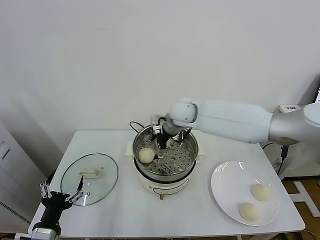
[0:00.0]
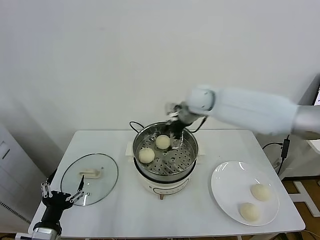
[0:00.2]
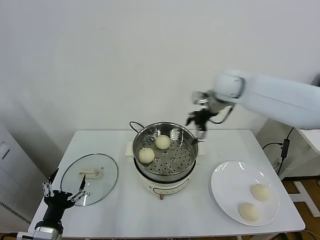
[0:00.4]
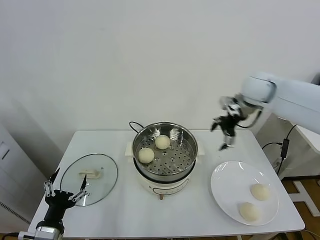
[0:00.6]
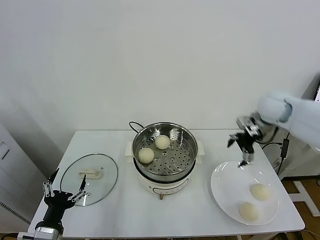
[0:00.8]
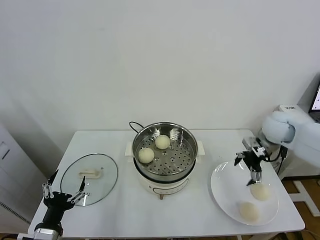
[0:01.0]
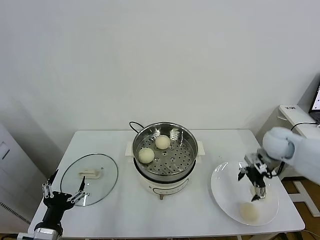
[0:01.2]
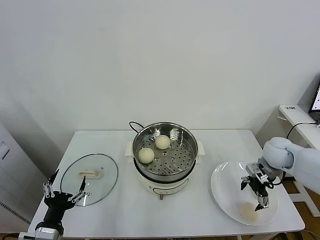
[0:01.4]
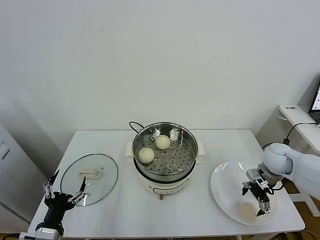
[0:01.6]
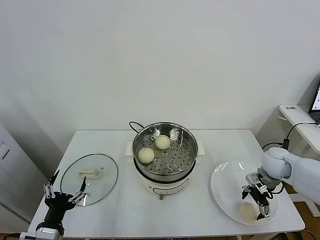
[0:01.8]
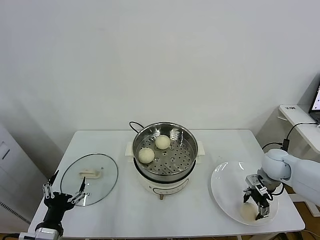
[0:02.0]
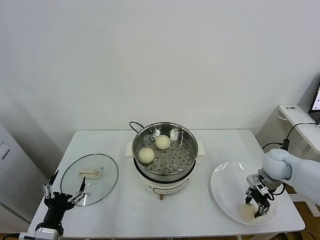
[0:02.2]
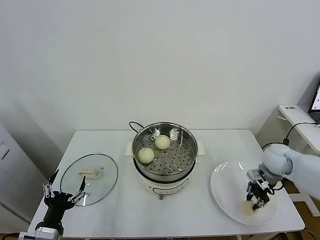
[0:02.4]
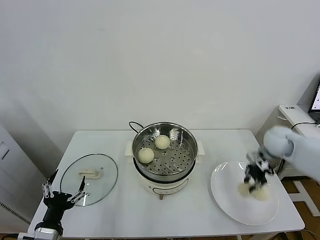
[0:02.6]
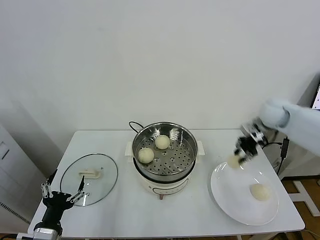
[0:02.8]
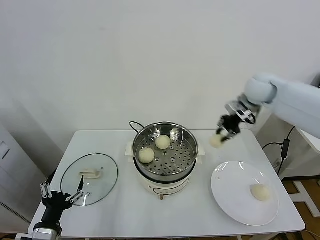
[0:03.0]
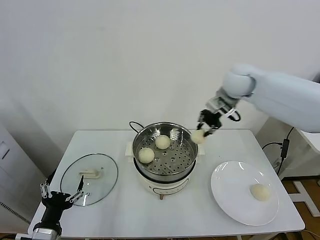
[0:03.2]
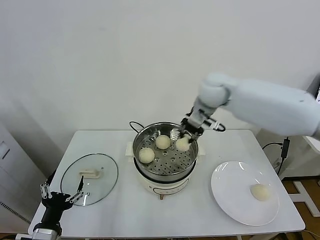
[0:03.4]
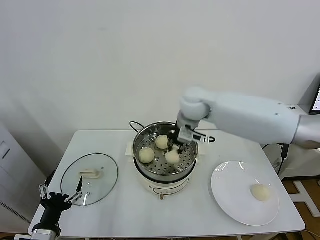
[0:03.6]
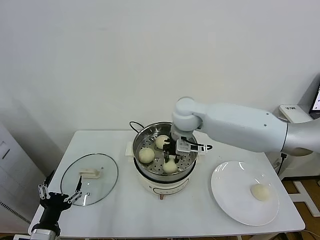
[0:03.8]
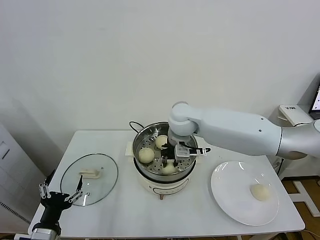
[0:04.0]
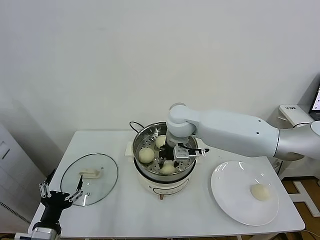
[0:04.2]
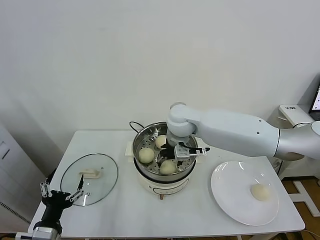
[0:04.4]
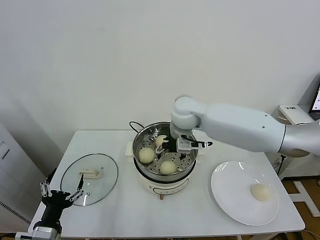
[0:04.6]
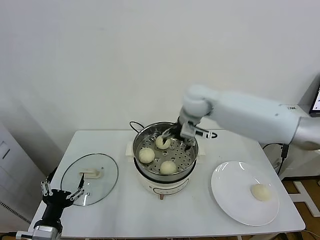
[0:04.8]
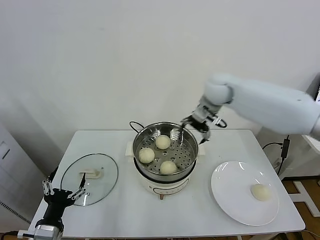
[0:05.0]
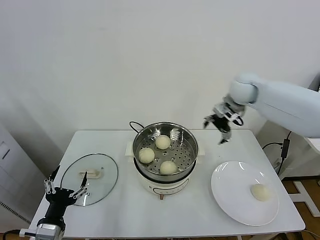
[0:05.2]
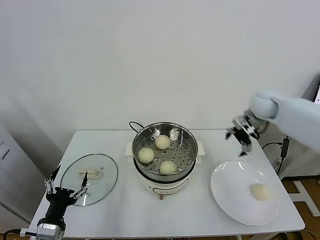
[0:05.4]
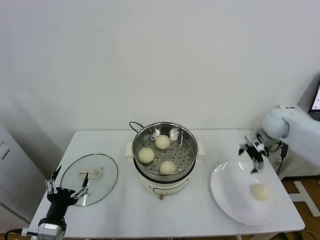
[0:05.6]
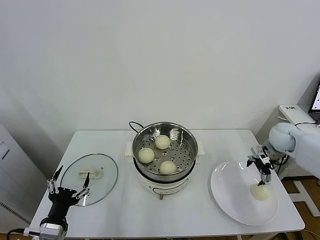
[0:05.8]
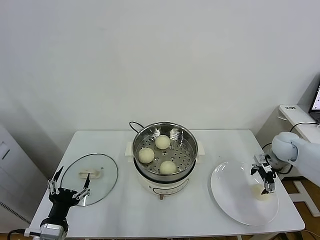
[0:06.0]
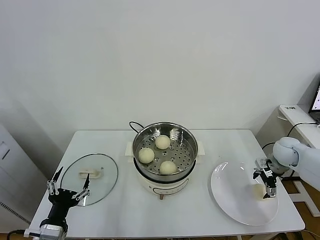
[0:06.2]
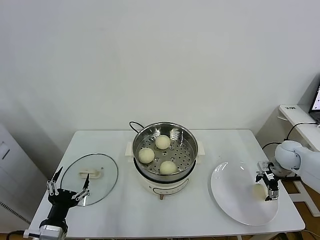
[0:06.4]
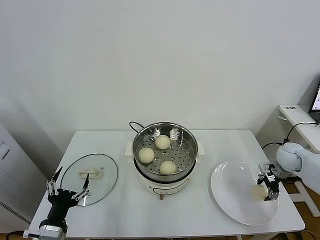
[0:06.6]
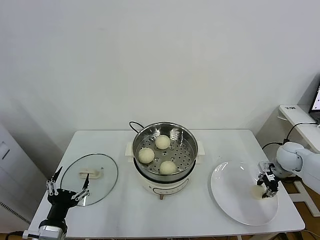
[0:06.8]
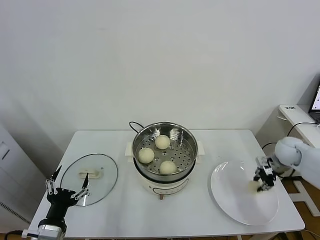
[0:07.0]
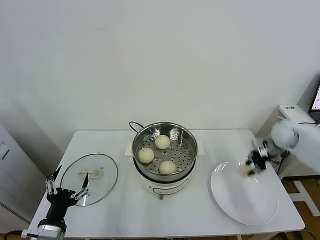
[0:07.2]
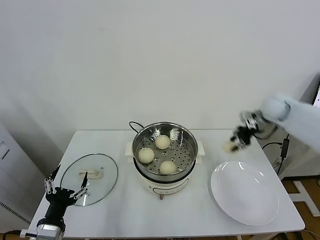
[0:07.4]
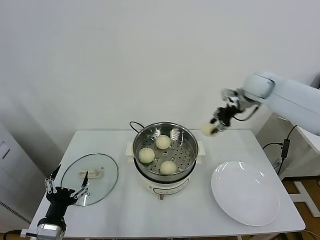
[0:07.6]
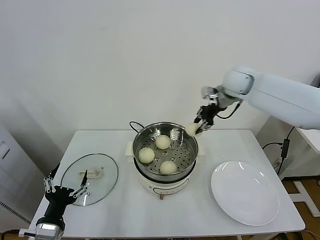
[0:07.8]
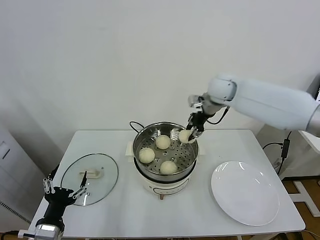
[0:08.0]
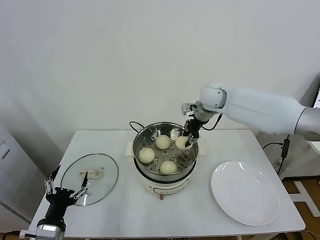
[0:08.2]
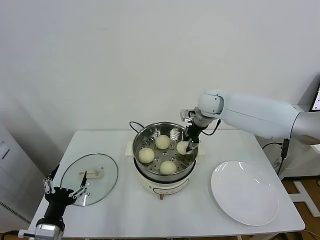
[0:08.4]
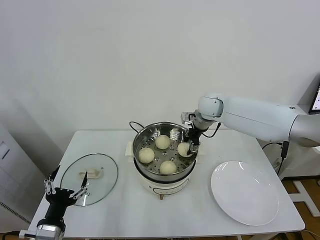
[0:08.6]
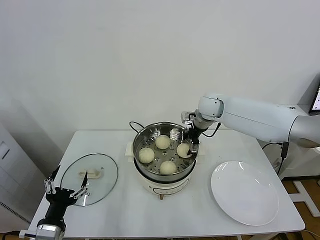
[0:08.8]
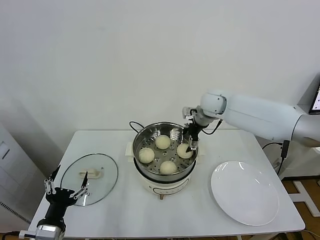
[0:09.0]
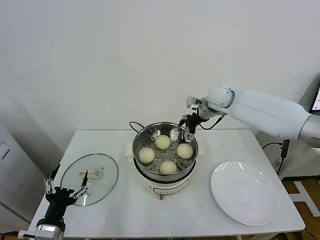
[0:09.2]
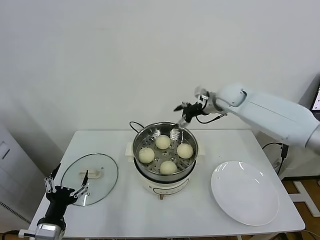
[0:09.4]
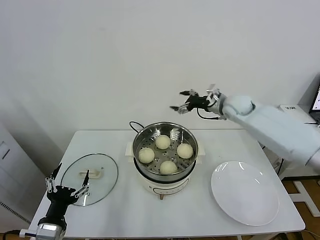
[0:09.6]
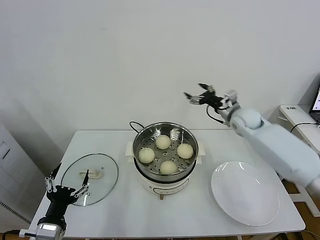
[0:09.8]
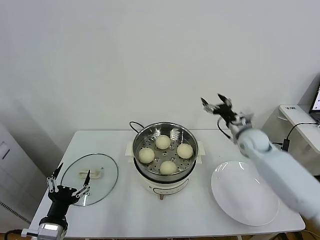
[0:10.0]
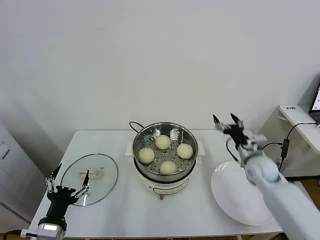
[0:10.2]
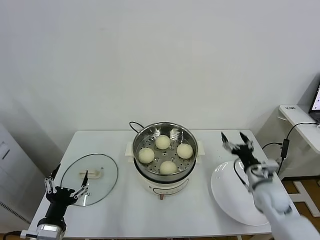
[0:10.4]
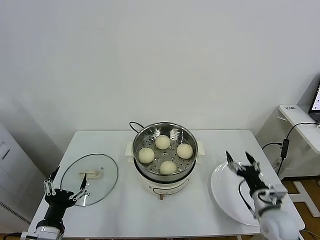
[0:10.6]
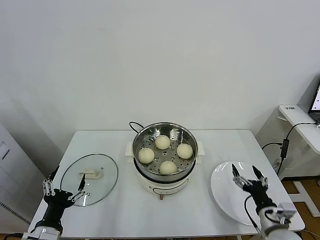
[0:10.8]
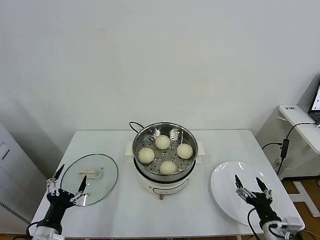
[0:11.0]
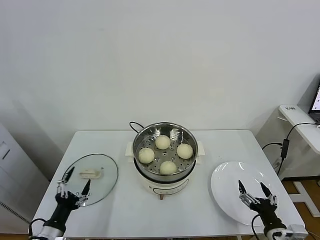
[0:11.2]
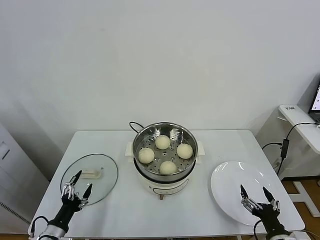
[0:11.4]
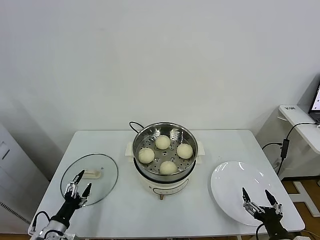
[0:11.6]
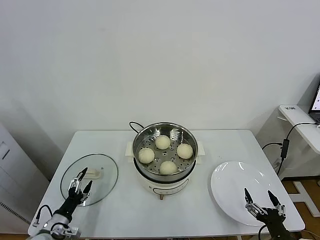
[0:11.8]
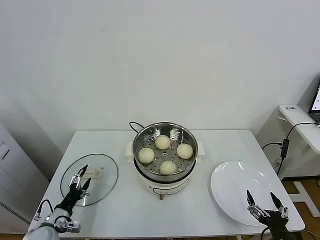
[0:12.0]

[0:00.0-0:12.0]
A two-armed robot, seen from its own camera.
Task of the whole recording: take steamed baozi put them in steamer.
Step, 0:00.0 to 0:02.0: Grasp the baozi in the plate with right gripper.
Step, 0:02.2 to 0:04.4: Place the baozi on the steamer with right gripper.
Step, 0:04.8 to 0:06.6: Grasp the baozi in the plate with right gripper.
Step, 0:06.8 to 0:08.8: Place the baozi on the steamer with right gripper.
0:00.0 to 0:01.6: The right gripper shifts roughly 30 cm to the right.
0:01.6 to 0:03.0: The right gripper heads upward, forward and to the left, covering roughly 25 cm, and closes.
0:03.0 to 0:04.4: The right gripper moves to the left, about 25 cm, and opens.
0:04.4 to 0:06.0: The right gripper is displaced to the right by approximately 40 cm.
0:06.0 to 0:07.6: The right gripper travels upward, to the left and forward by about 25 cm, and closes its fingers.
0:07.6 to 0:09.0: The right gripper is displaced to the left and downward by approximately 15 cm, and opens its fingers.
0:09.0 to 0:10.4: The right gripper travels backward, downward and to the right by roughly 35 cm.
0:10.4 to 0:12.0: The left gripper travels downward, forward and to the left by about 20 cm, while the right gripper moves backward, roughly 25 cm.

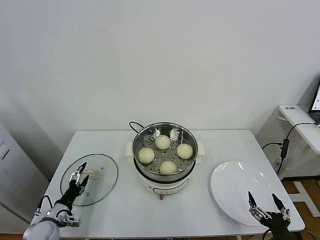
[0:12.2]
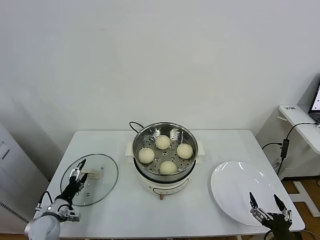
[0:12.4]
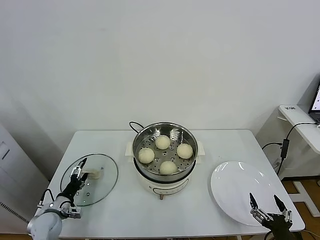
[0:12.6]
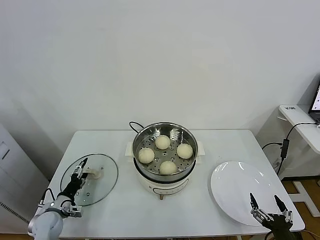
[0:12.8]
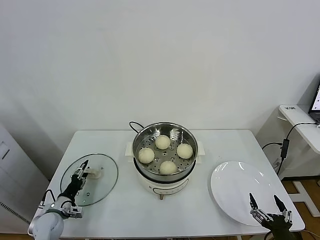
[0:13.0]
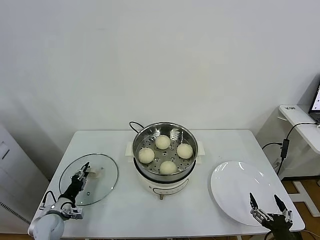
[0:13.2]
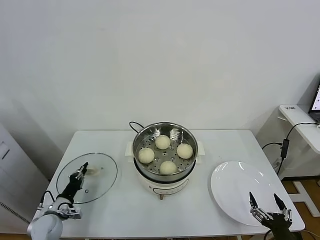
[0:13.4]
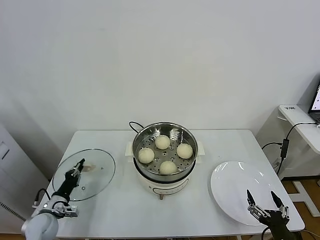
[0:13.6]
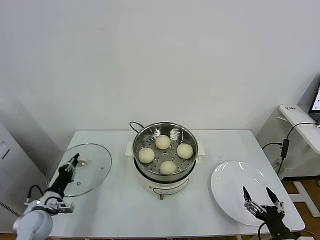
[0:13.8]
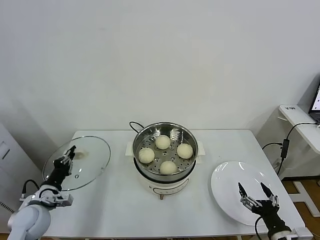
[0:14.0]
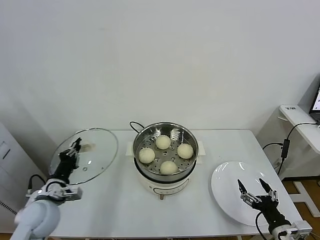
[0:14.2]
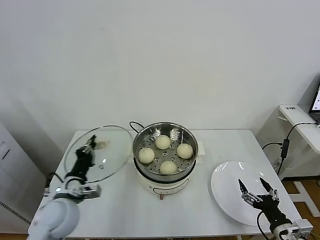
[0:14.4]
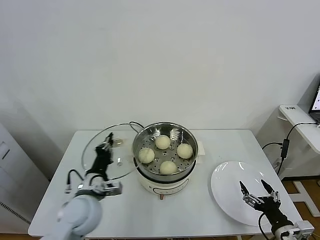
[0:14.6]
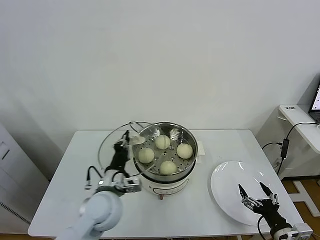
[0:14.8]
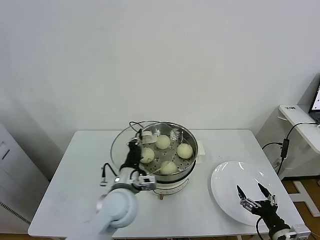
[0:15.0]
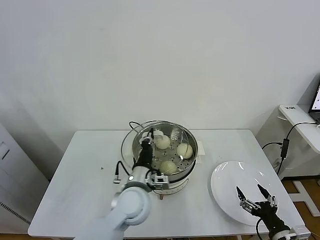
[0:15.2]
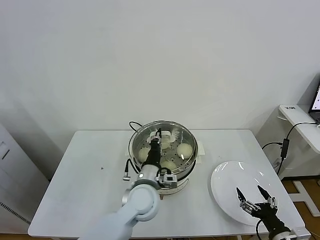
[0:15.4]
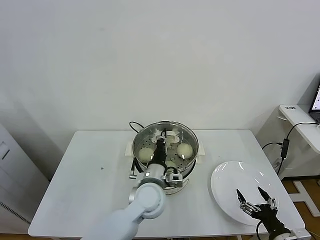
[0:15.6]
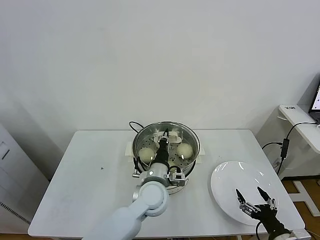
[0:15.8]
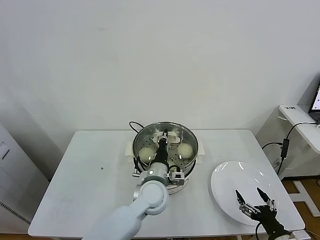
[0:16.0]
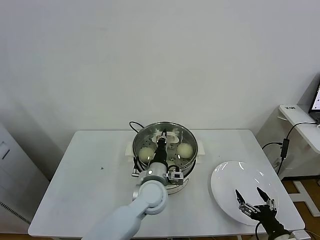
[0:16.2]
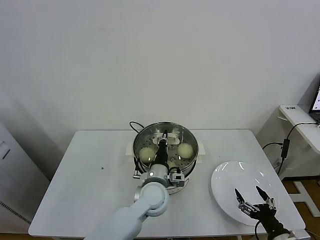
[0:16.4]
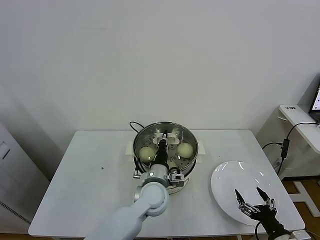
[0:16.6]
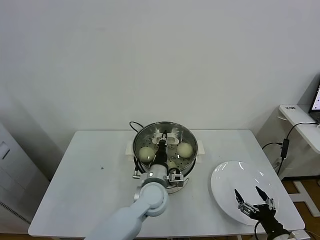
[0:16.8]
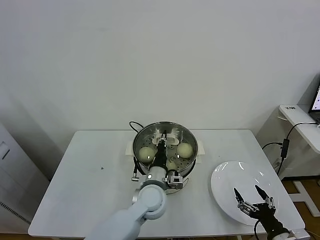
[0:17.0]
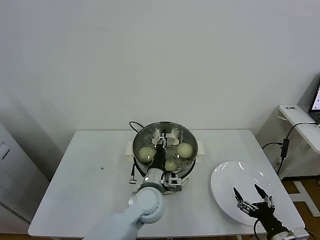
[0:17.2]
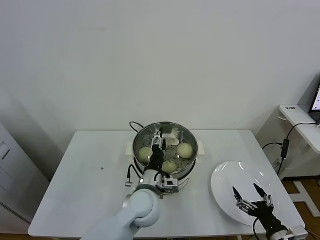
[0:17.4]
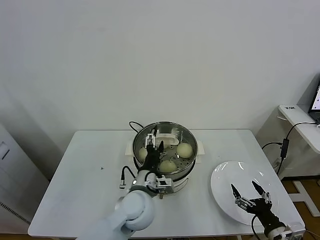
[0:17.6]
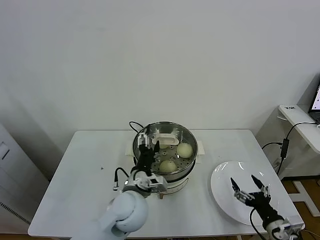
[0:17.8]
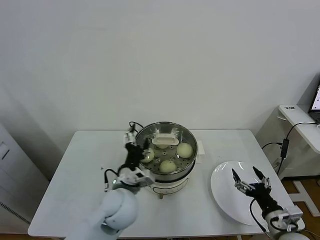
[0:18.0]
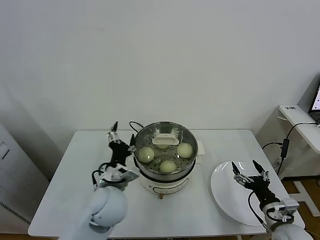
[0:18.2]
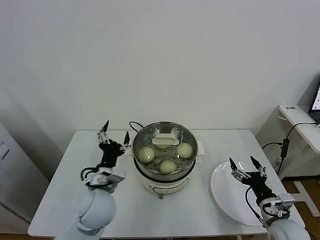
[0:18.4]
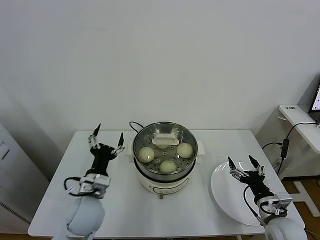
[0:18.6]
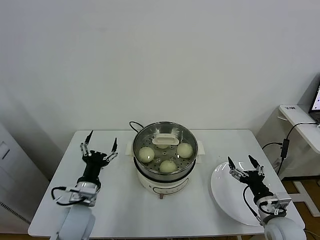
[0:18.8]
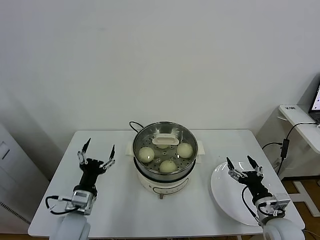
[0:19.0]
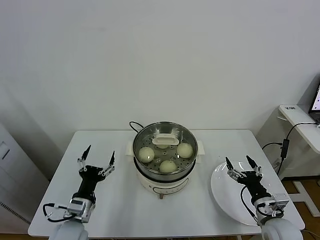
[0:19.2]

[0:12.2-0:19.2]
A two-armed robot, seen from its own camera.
Task of the whole recording: take steamed baozi put them in steamer.
Step, 0:13.6 to 0:17.6: Place the pot lid on the steamer with left gripper.
0:12.2 to 0:13.6: The left gripper closes its fingers.
0:13.6 to 0:15.0: The left gripper travels to the right and upward by about 30 cm; the right gripper changes place by about 5 cm.
0:15.0 to 0:16.4: The left gripper travels to the right by some 10 cm.
0:16.4 to 0:17.8: The left gripper goes some 5 cm to the left and backward, and opens.
0:17.8 to 0:19.2: The left gripper heads to the left, covering roughly 20 cm, while the right gripper travels forward by some 5 cm.

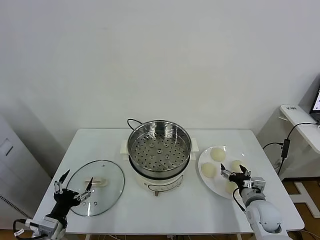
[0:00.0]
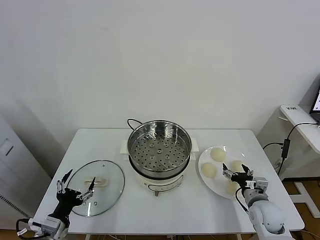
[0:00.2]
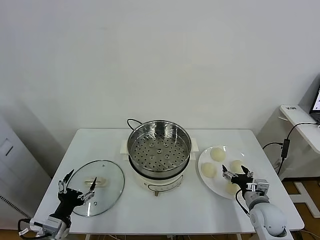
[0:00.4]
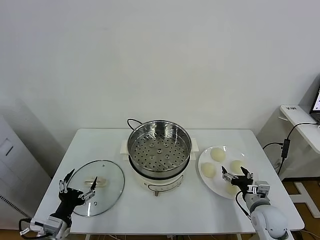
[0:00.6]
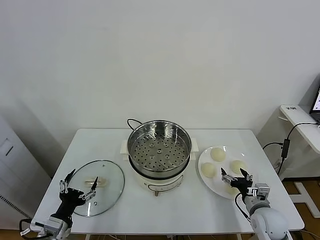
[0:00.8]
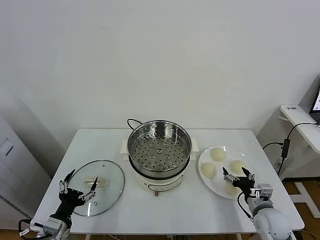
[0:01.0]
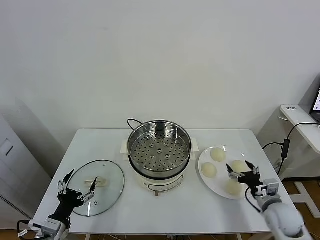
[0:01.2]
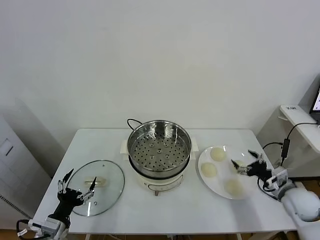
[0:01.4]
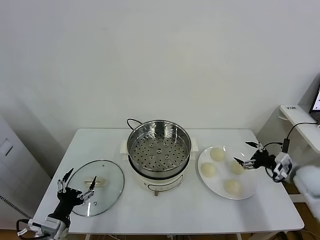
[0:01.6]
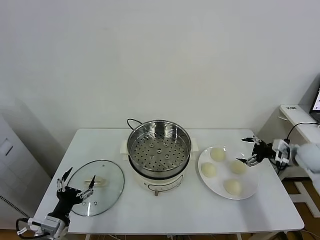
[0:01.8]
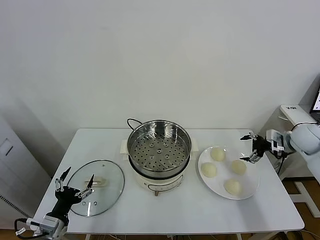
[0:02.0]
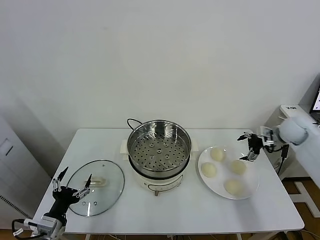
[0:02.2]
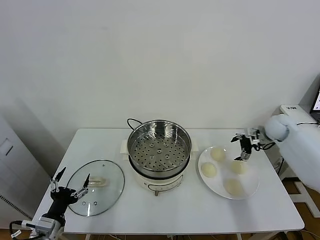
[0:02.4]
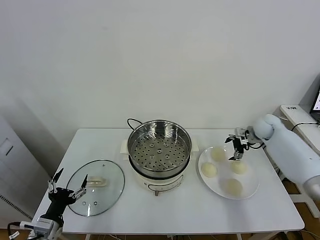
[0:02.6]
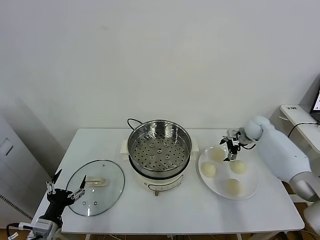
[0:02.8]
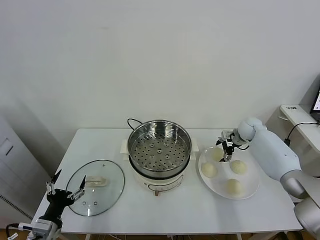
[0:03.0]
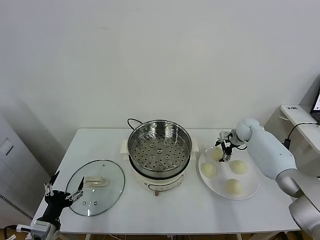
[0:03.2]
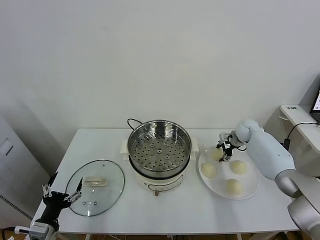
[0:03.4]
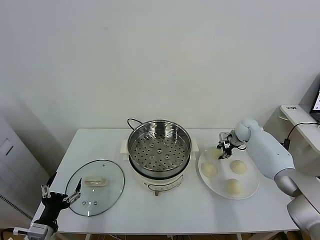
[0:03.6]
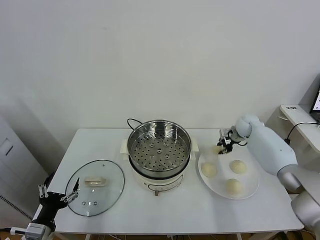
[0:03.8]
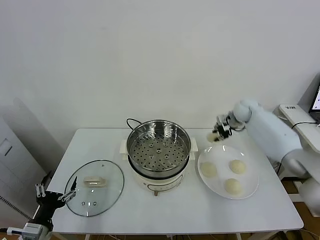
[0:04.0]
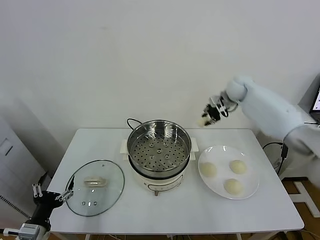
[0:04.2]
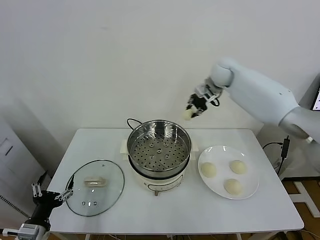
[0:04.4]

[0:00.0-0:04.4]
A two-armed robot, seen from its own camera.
Task of the whole recording: take steamed baozi put them in steamer.
Step, 0:00.0 to 0:03.4: Grasp the baozi in the plate with right gripper.
0:01.4 to 0:03.0: The right gripper goes some 25 cm forward.
0:03.0 to 0:04.4: The right gripper heads upward and to the left, covering roughly 30 cm, and closes up.
